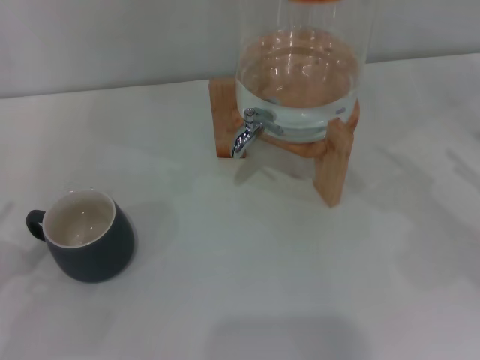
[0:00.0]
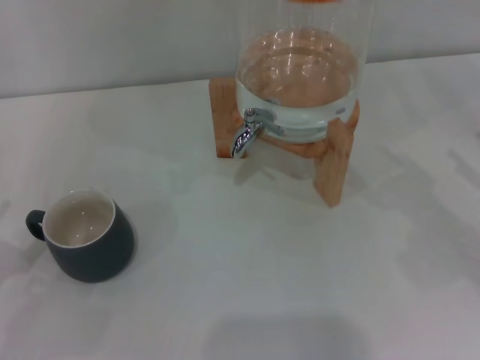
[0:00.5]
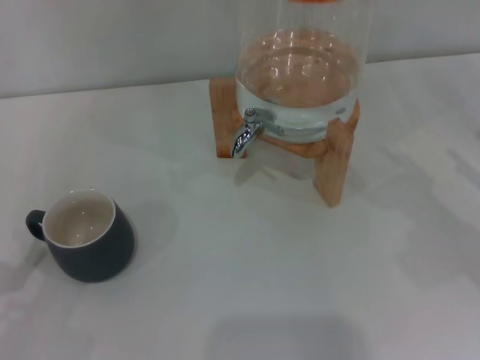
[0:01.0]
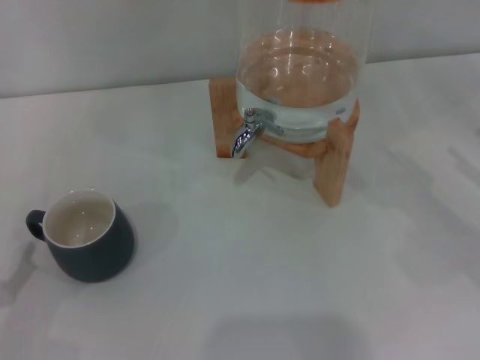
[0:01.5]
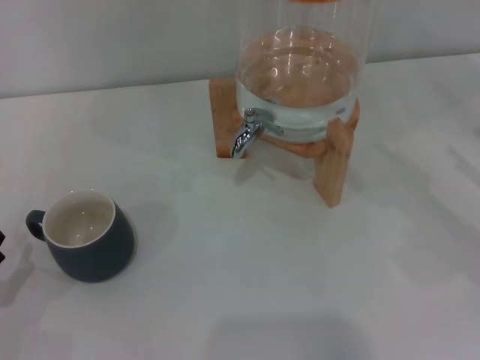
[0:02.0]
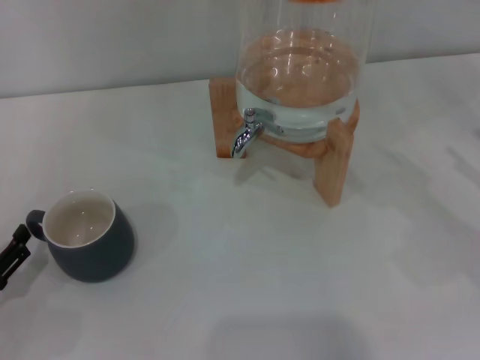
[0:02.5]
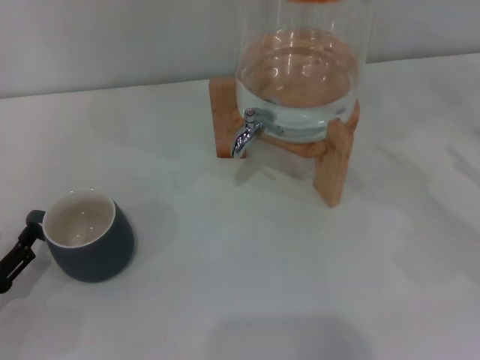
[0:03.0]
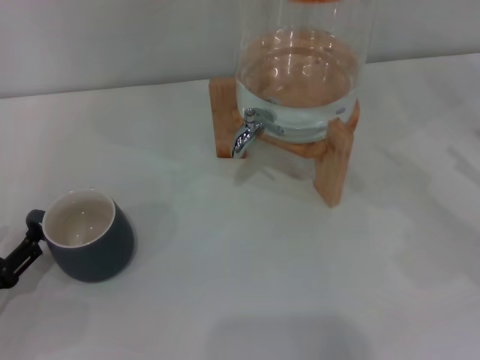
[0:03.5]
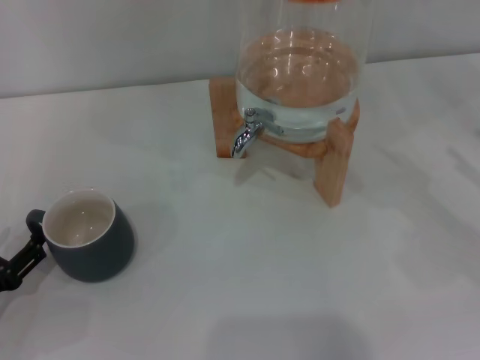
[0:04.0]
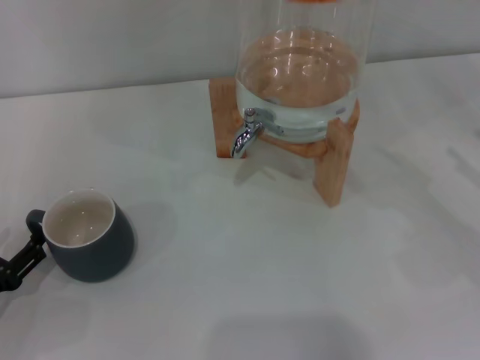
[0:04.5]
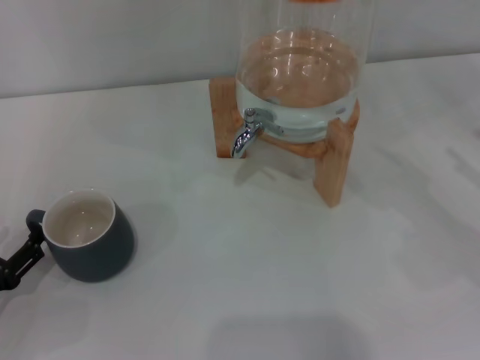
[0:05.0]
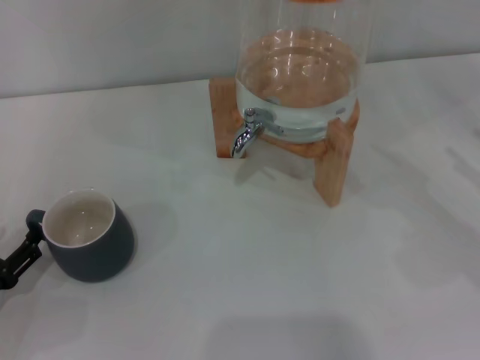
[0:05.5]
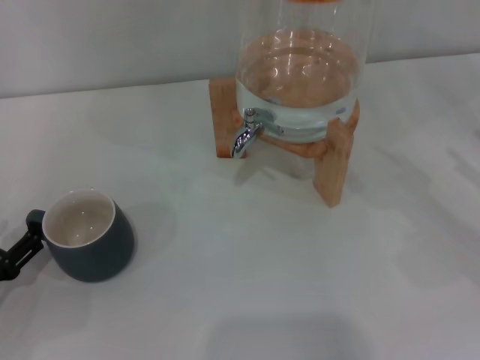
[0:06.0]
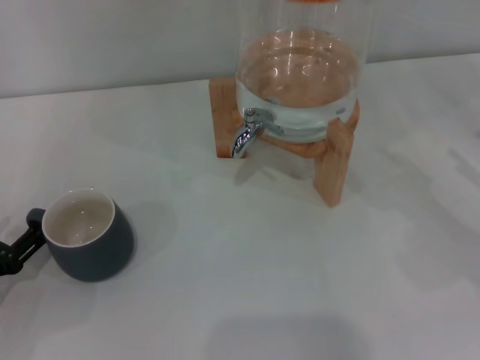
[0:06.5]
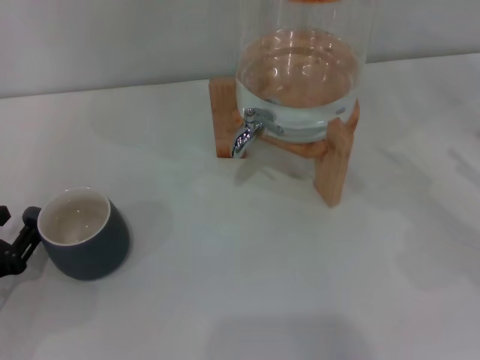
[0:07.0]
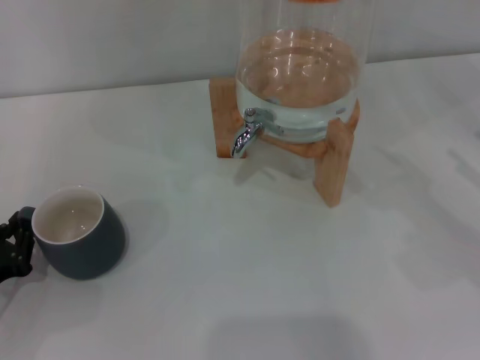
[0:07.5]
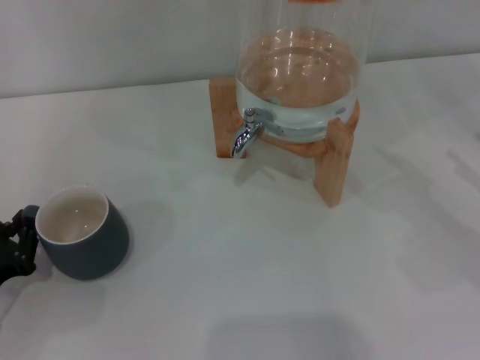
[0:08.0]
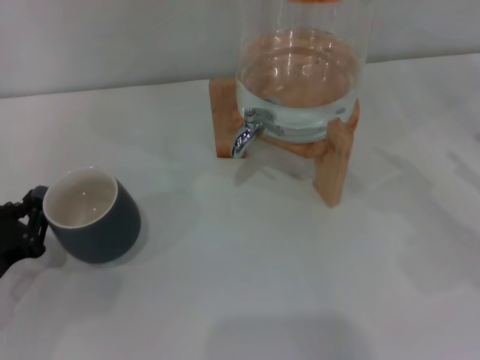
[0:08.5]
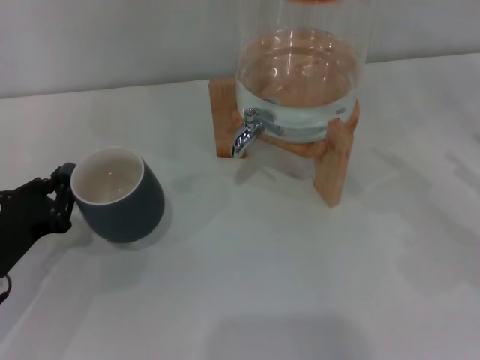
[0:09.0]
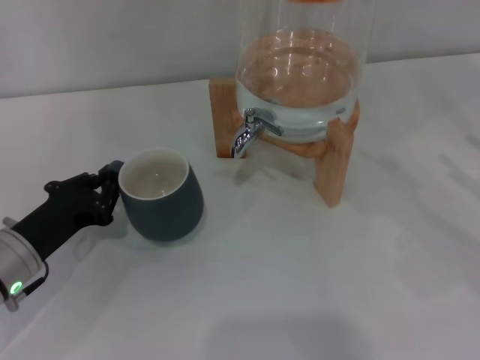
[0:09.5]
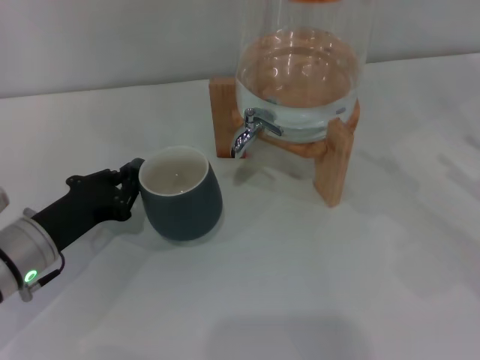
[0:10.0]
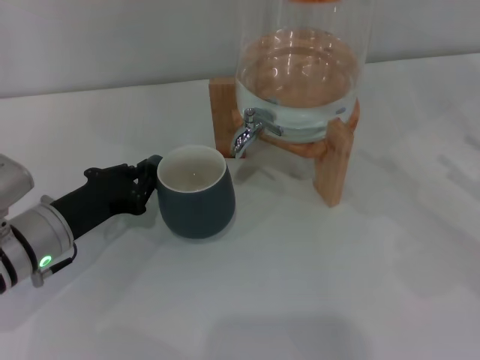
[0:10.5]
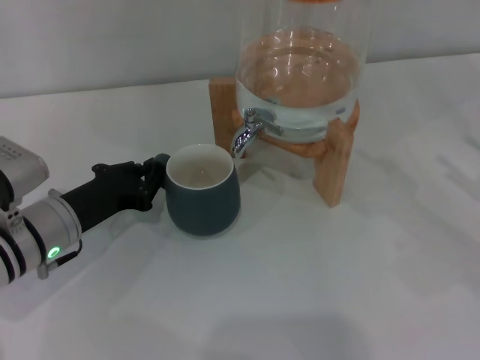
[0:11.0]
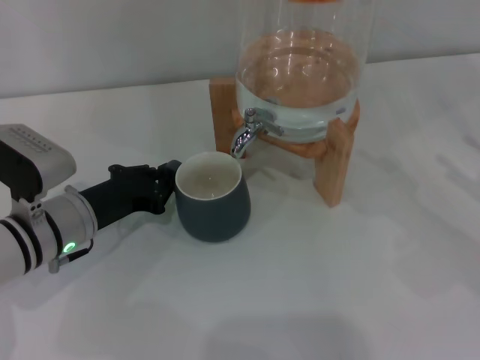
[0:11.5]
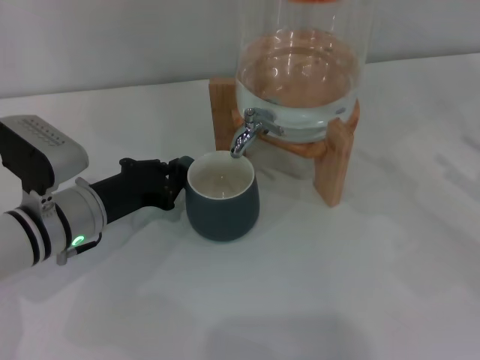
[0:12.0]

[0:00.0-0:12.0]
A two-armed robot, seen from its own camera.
Task of the whole recording: the left gripper pick up the black cup and place it horizontally under the faucet, the right gripper turn on the faucet to fill the cup, and then turn off the faucet.
0:02.0 to 0:04.0: The grippers move only a little.
0:04.0 to 0:06.0: The two grippers keep their place.
0:06.0 to 0:08.0: The left gripper closes.
0:08.0 to 0:10.0: The left gripper goes approximately 10 cm to the right and forward.
0:10.0 to 0:12.0: The left gripper moves roughly 5 cm.

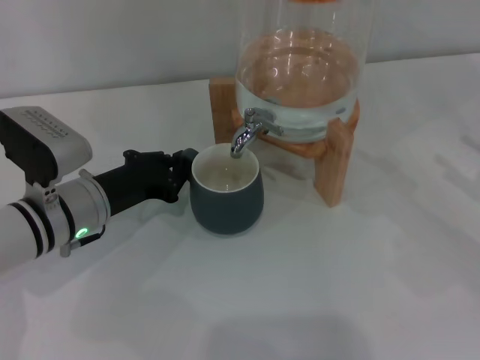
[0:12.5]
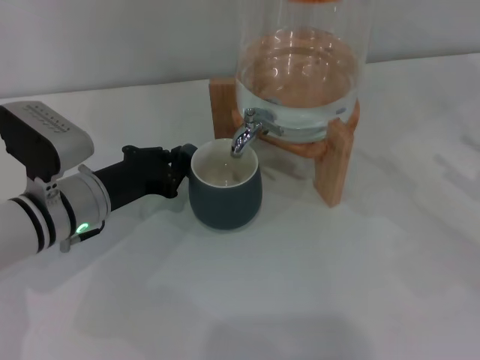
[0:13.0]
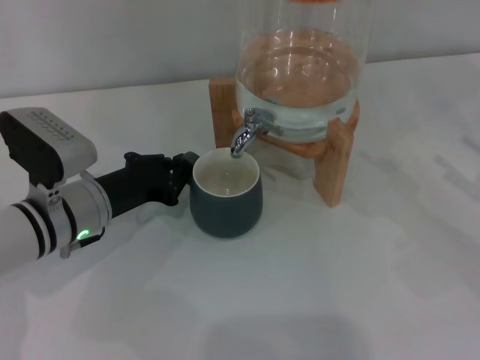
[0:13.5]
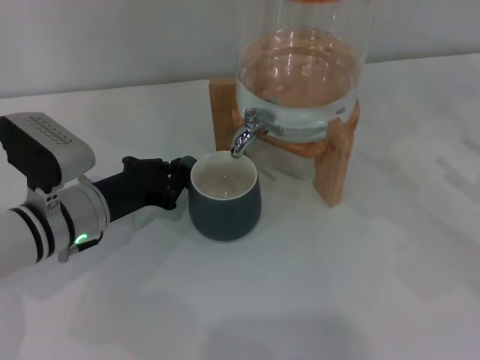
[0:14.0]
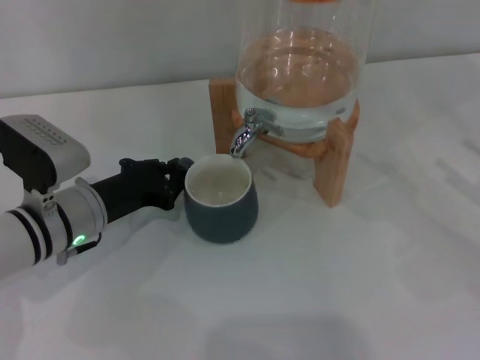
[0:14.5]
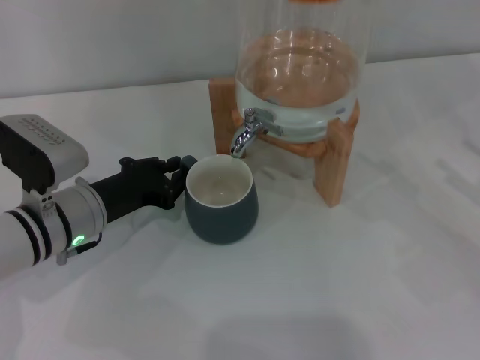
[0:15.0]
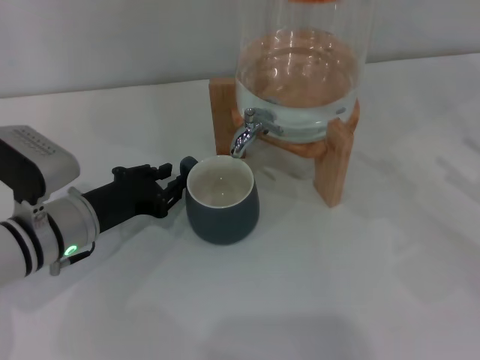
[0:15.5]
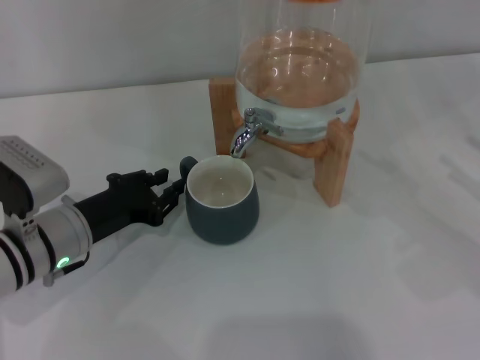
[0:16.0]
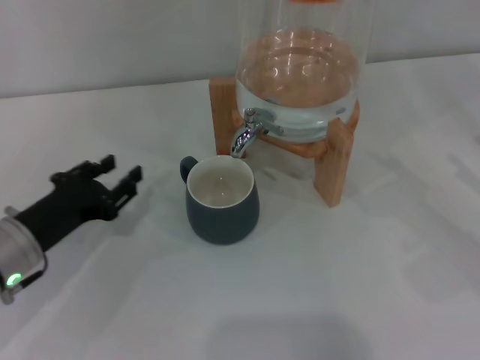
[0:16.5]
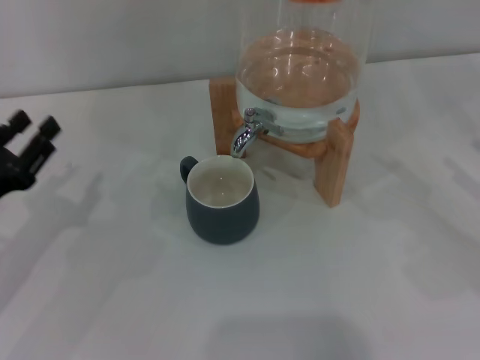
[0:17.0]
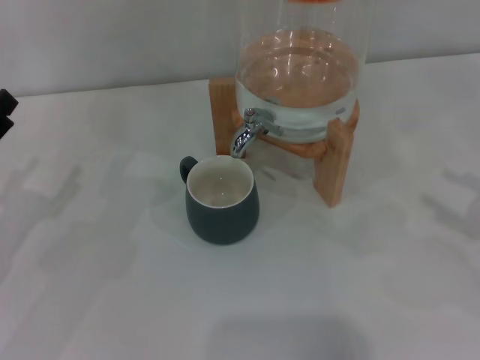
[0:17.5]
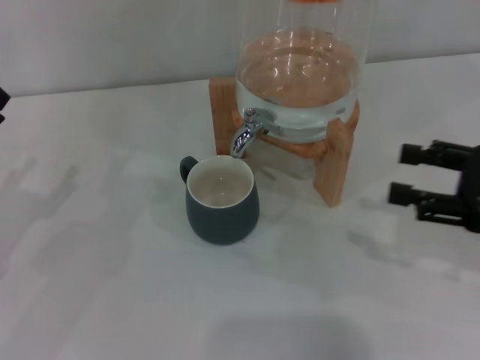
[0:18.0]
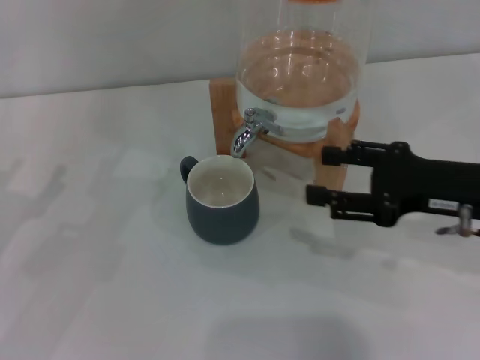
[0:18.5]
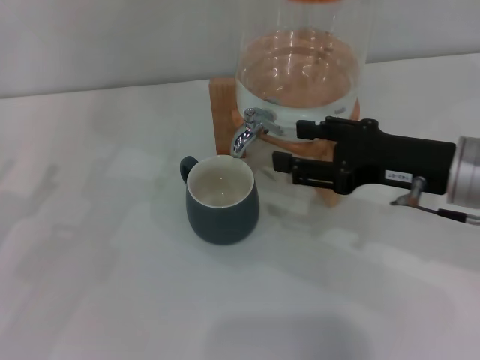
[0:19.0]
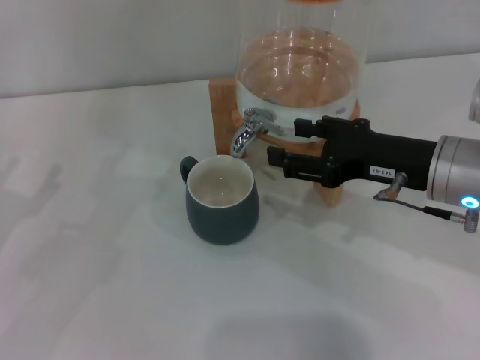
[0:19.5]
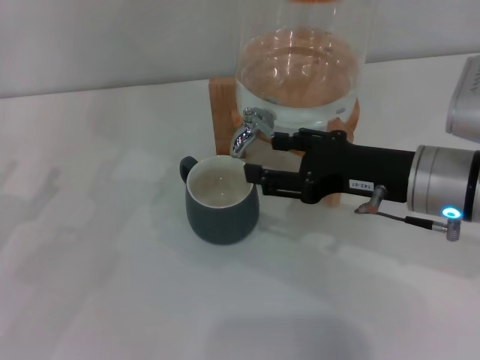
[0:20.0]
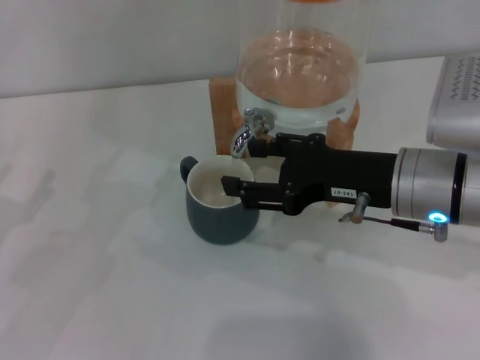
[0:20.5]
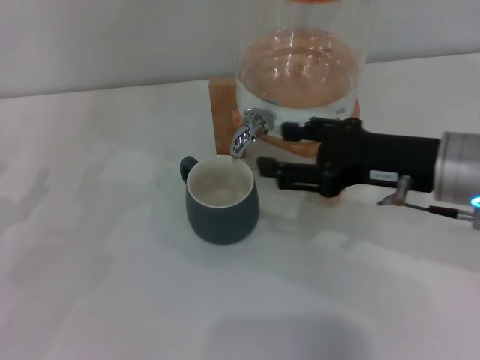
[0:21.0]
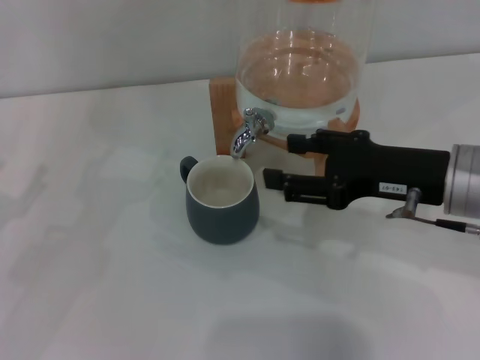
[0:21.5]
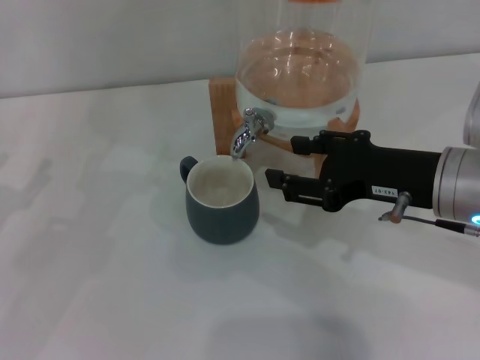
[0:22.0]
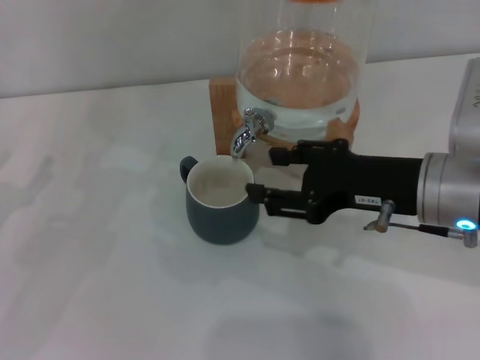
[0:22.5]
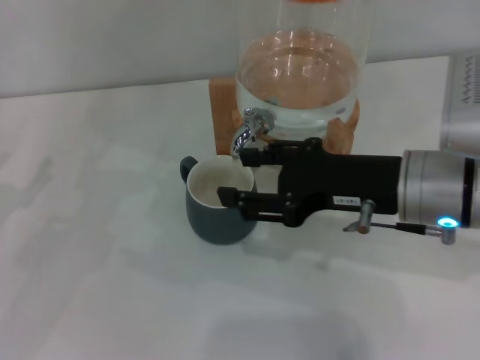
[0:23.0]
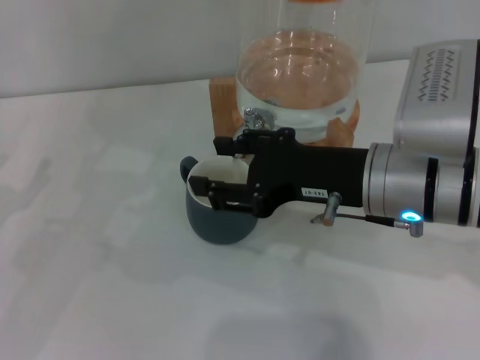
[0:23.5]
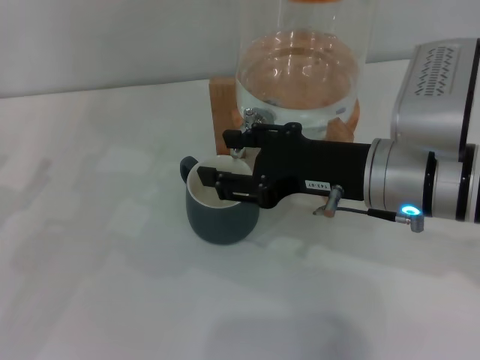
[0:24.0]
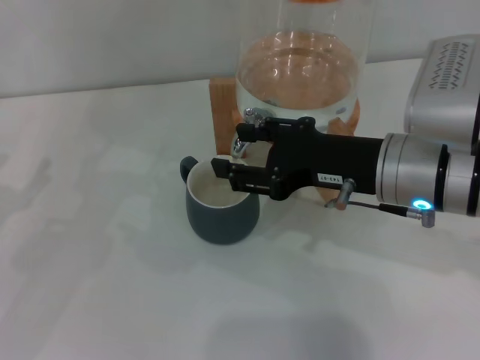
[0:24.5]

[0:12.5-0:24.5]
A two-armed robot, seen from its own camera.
Task of the whole recording: the left gripper pick up the black cup and place it horizontally under the faucet, the right gripper turn on the faucet to fill the cup, and then turn off the faucet.
Step, 0:12.5 to 0:15.5: Move the cup beneath the water dispenser nozzle with the left gripper.
Step, 0:16.0 to 0:20.5: Open the dispenser valve and fill the cup with water with the right gripper.
0:12.5 to 0:14.5: Both grippers stay put.
0:14.5 to 0:16.5: The left gripper heads to the left, covering approximately 5 cm.
0:16.5 to 0:18.5: The left gripper heads to the left, covering roughly 10 cm, and opens its fingers. Meanwhile the right gripper goes approximately 15 cm to the left.
0:18.5 to 0:20.5: The right gripper is displaced to the left by some 10 cm.
0:20.5 to 0:24.5: The grippers make only small movements.

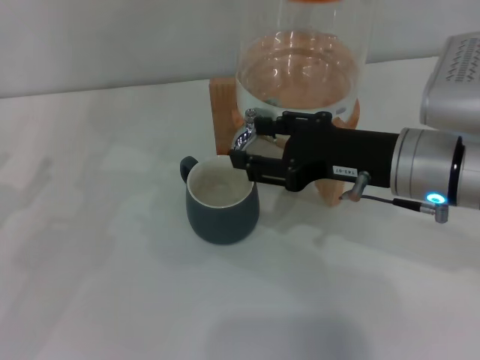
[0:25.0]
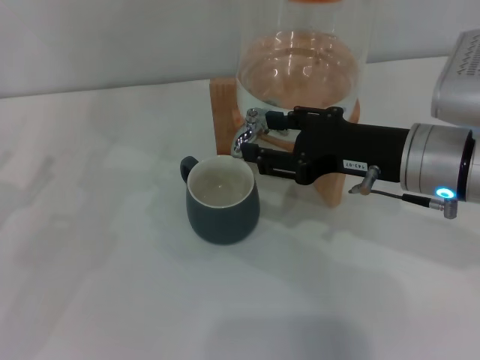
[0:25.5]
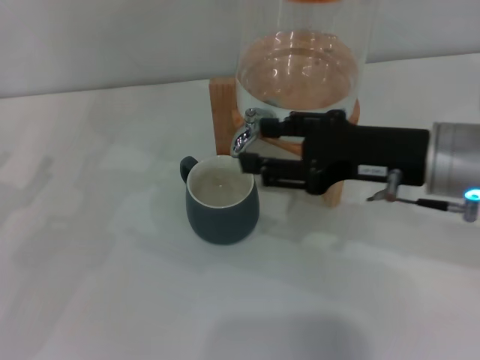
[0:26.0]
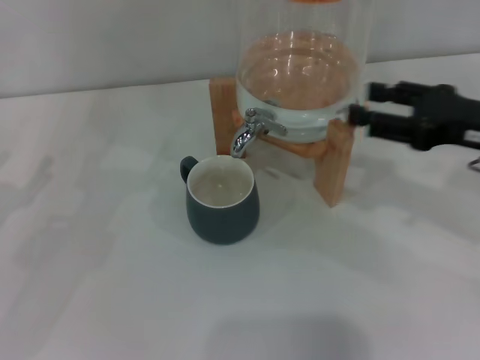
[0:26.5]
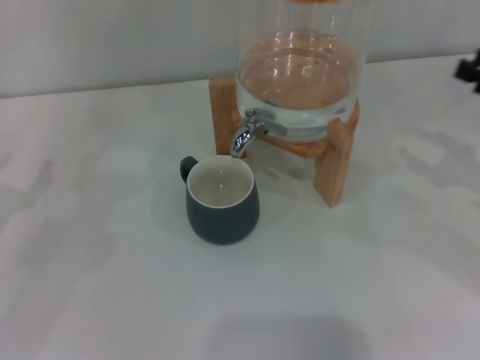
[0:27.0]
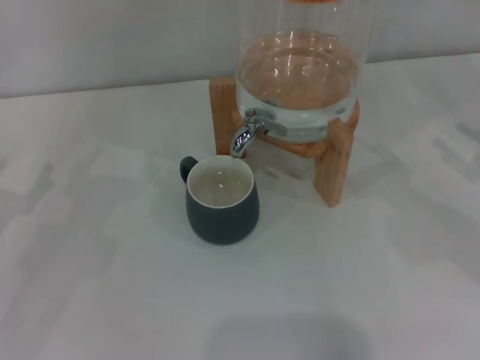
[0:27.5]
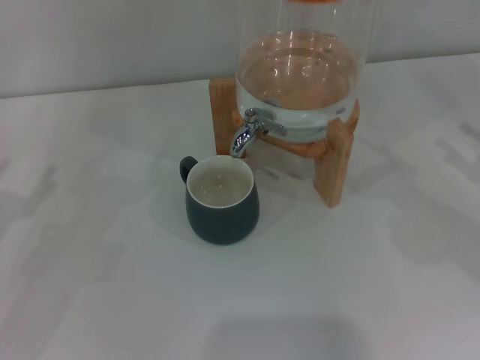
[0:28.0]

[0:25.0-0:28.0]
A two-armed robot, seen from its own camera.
Task of the whole recording: the left gripper pick up the black cup and place it horizontally under the faucet, the right gripper turn on the faucet to fill the cup, and then turn off the faucet.
0:25.0 to 0:26.5: The right gripper is displaced to the right by approximately 10 cm.
0:26.5 to 0:28.0: The right gripper shifts about 10 cm to the right.
